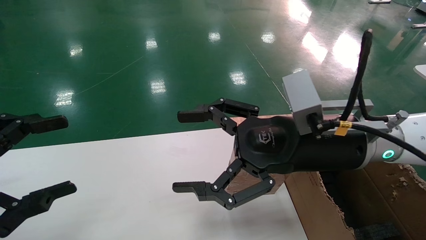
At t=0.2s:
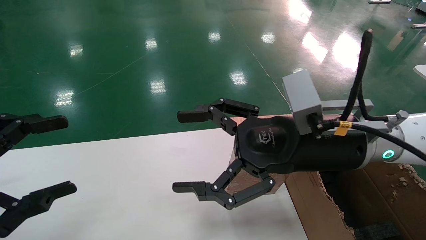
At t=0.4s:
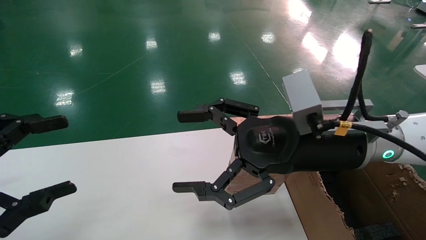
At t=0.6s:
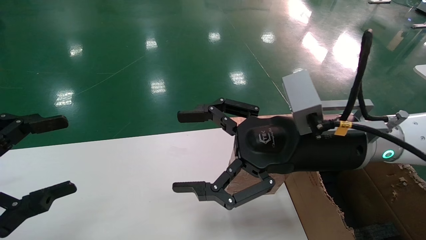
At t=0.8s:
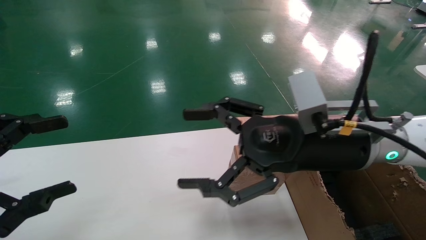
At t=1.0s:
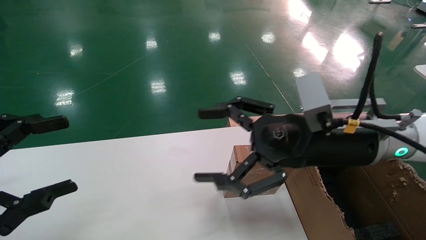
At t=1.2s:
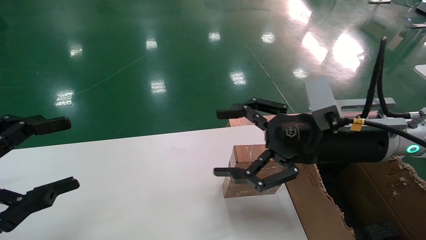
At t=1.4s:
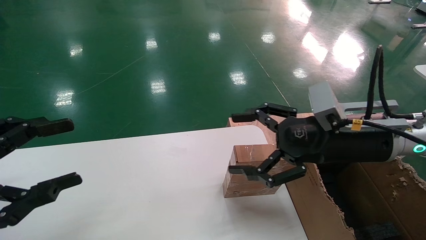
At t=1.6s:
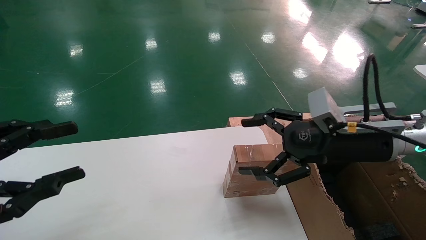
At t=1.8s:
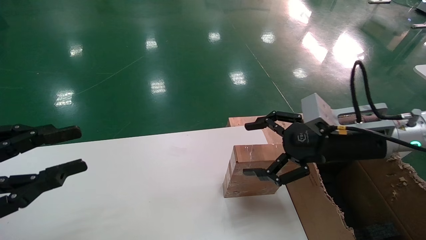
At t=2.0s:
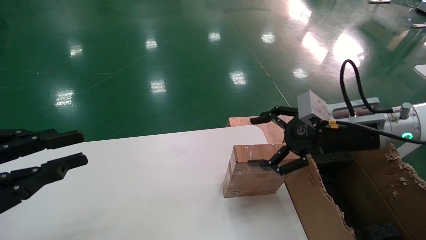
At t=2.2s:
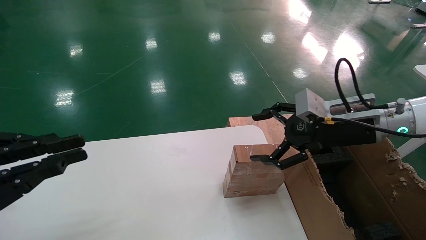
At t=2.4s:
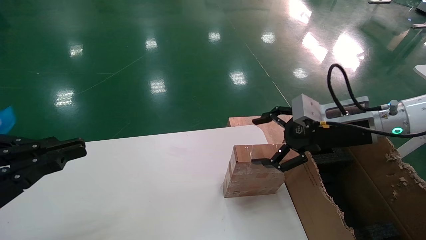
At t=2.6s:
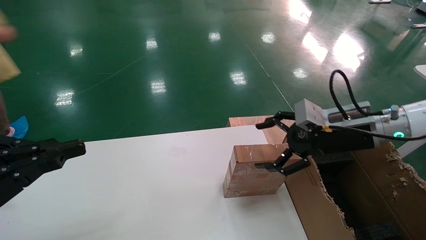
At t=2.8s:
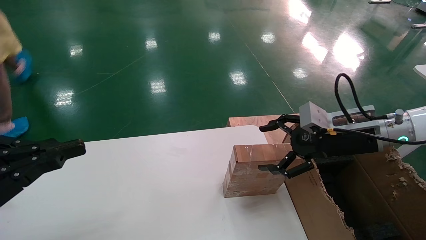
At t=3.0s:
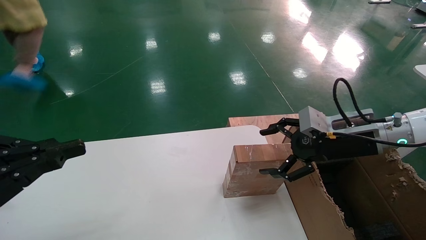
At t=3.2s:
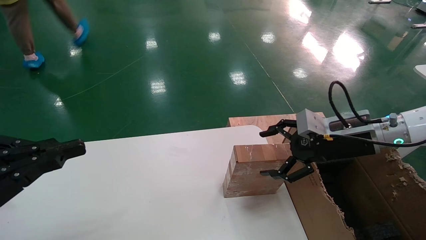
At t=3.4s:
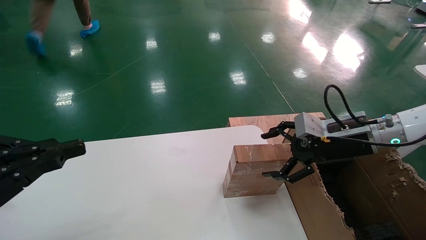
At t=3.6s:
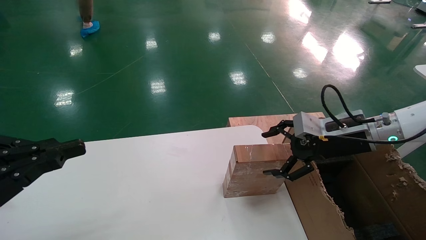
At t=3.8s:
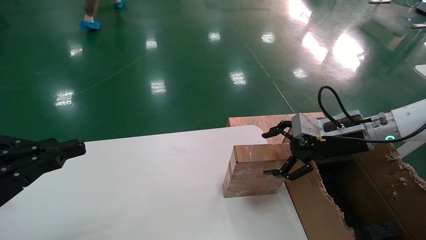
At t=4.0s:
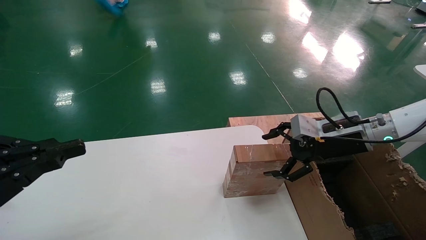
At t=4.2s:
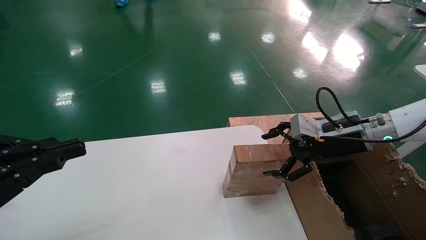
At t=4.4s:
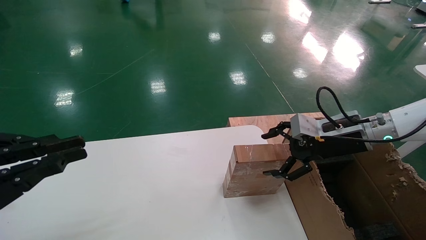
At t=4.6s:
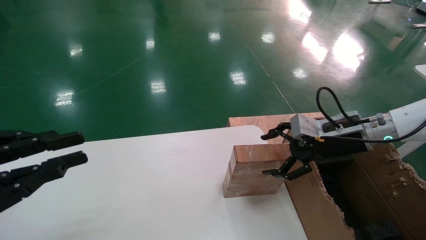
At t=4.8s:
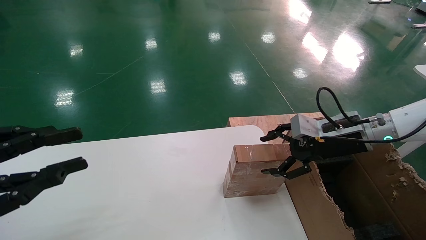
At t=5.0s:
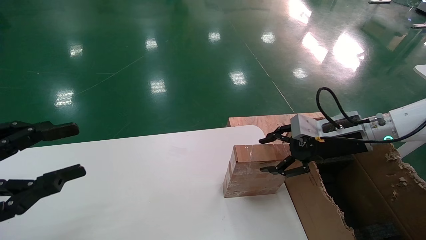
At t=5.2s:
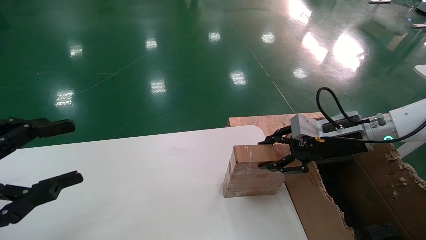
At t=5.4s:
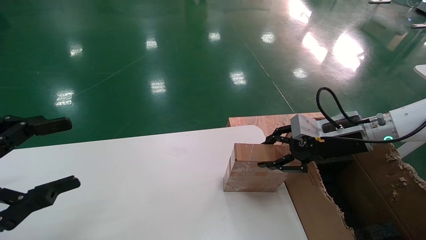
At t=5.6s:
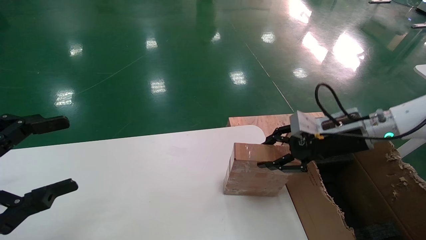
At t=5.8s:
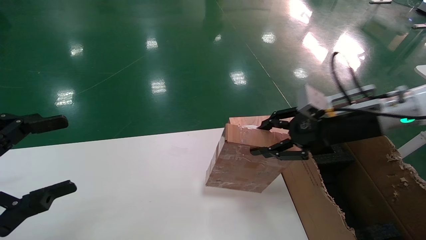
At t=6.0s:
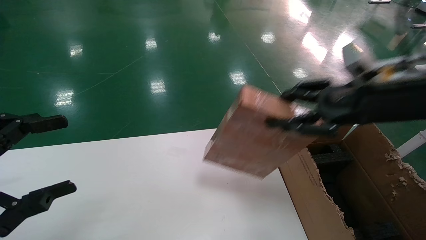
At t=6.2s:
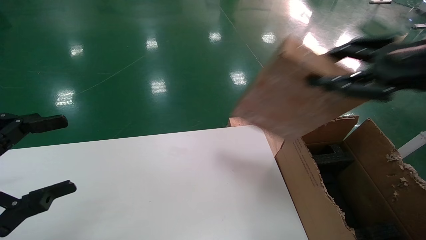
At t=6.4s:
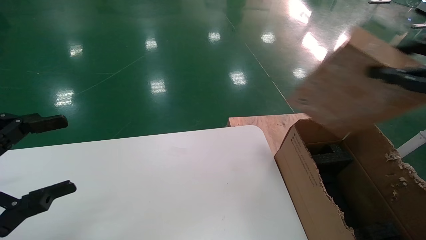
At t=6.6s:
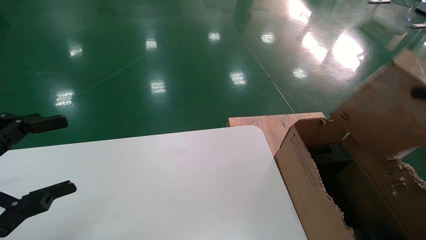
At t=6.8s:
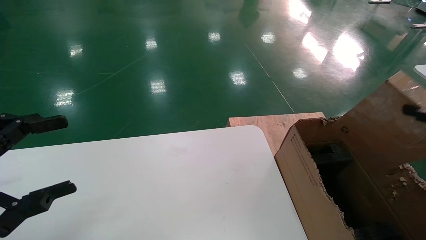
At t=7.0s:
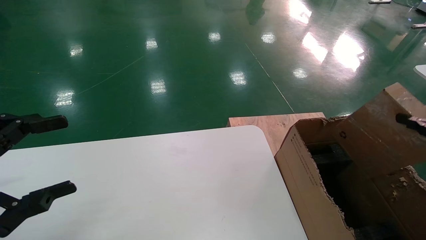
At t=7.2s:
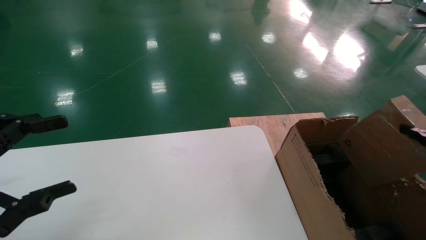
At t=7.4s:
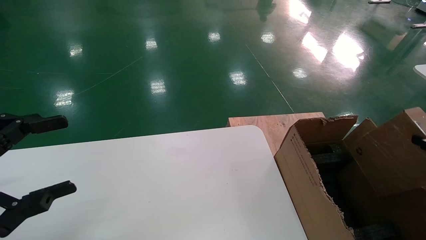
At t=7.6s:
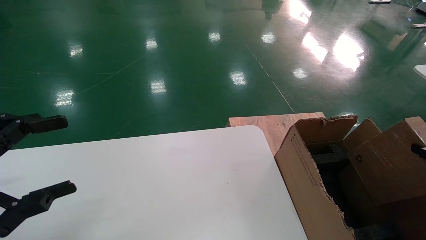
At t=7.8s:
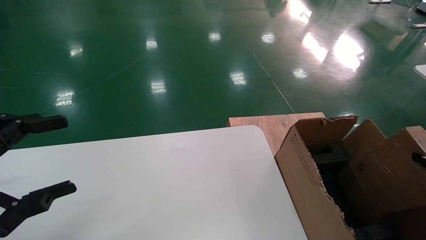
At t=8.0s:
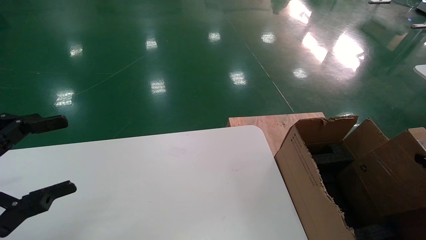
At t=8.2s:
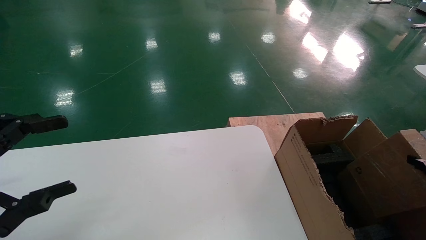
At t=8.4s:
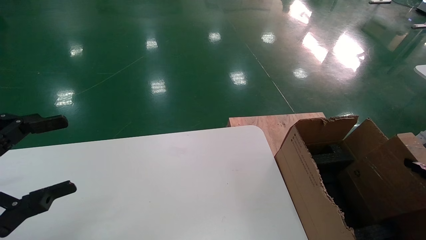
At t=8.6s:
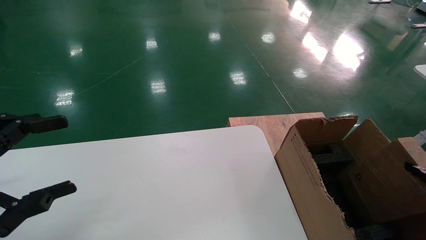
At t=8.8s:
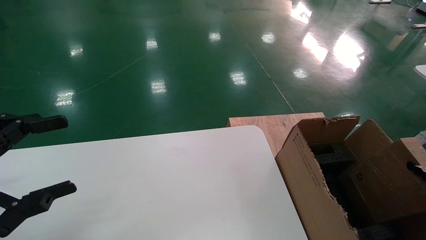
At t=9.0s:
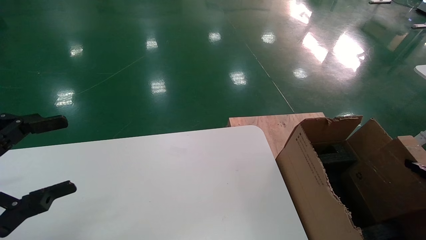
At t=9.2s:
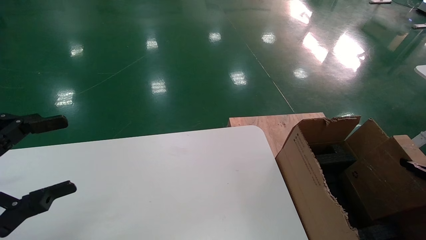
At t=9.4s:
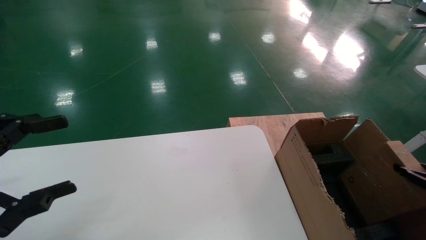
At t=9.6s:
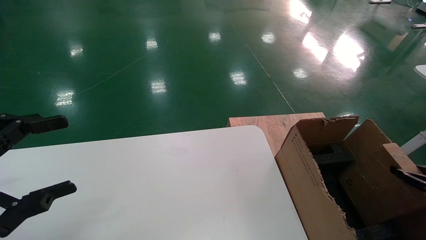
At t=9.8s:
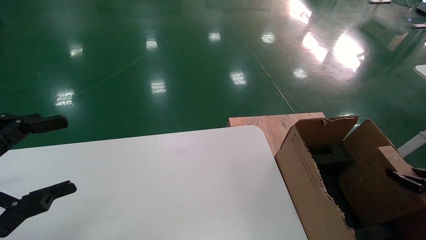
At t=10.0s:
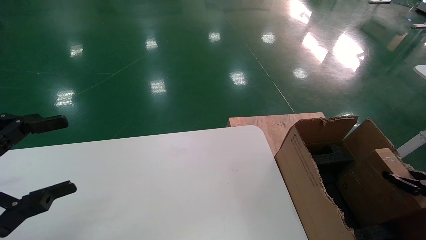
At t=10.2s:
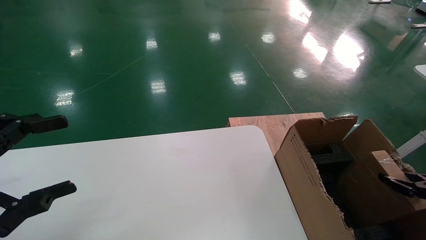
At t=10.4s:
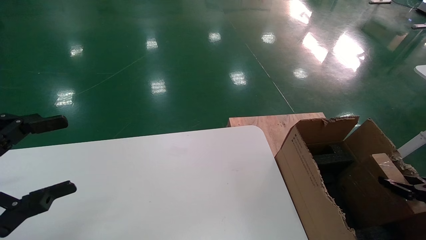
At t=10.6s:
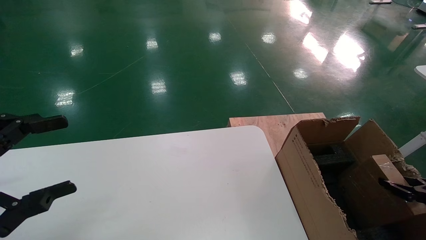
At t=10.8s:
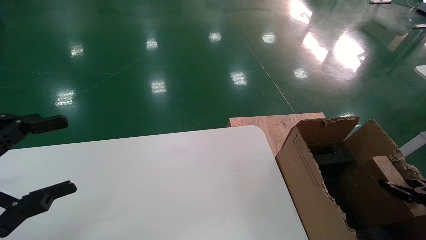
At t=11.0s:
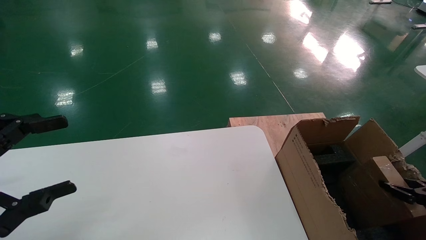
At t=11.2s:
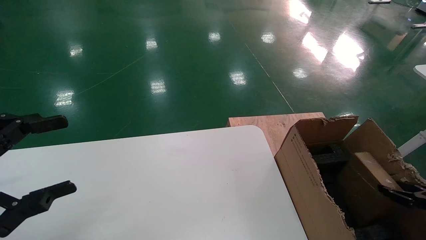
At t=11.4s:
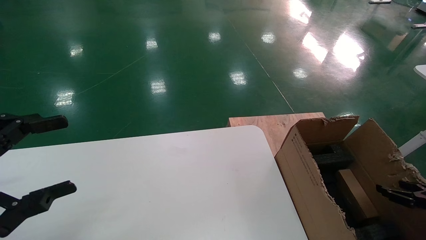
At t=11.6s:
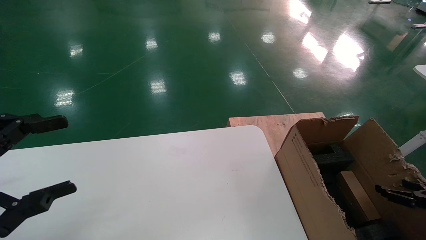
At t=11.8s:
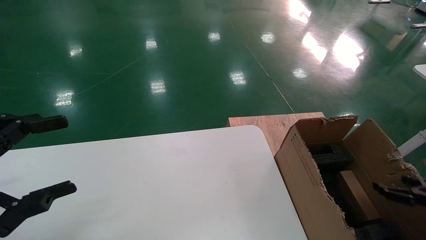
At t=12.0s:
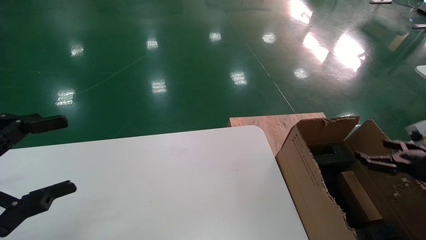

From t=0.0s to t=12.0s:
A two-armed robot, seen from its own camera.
Task of the whole recording: put the box on the table into the big box.
Step, from t=1.2s to t=5.4s: Pick up the mouse and the power cord paper box.
Step, from t=5.6s to t=11.4s: Place the mouse and the power cord paper box into the container.
From t=0.0s to t=1.6s: The right gripper heads to the right, covering approximately 10 cm.
From t=1.6s to t=3.0s: The right gripper shifts some 5 cm to the right; the left gripper closes.
From t=3.0s to t=4.4s: The grippers make only small movements.
From t=4.4s to t=6.0s: The right gripper moves upward and backward, approximately 15 cm, and closes up; the left gripper opens.
From t=6.0s to t=7.6s: The right gripper travels to the right, downward and backward by some 30 cm.
From t=7.6s to t=9.0s: The right gripper goes roughly 5 cm downward.
From t=9.0s to t=10.4s: The right gripper travels downward by about 5 cm.
From t=10.4s to t=12.0s: The right gripper heads upward, covering approximately 5 cm, and opens.

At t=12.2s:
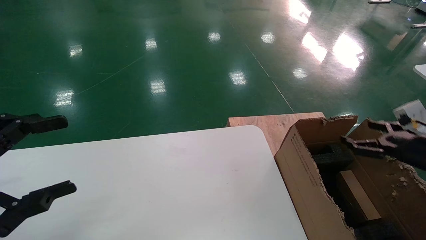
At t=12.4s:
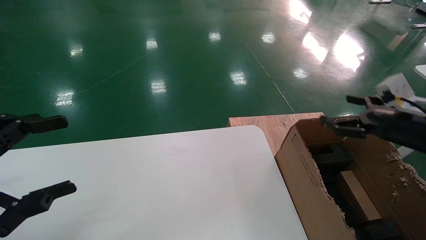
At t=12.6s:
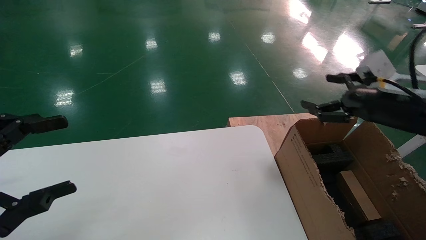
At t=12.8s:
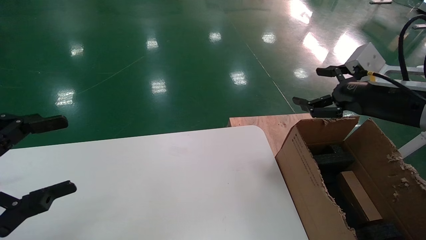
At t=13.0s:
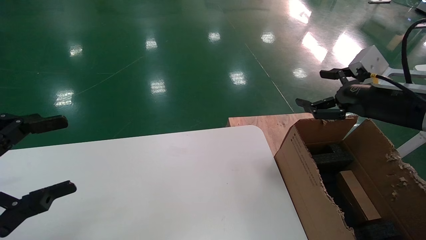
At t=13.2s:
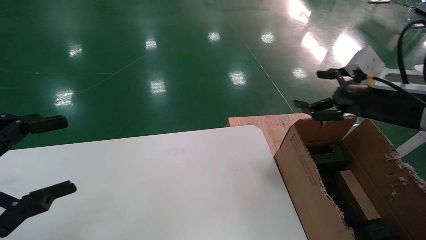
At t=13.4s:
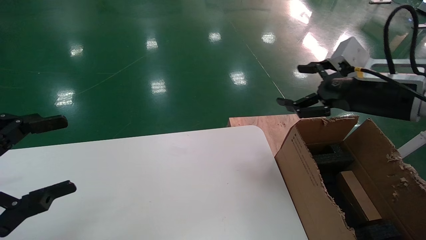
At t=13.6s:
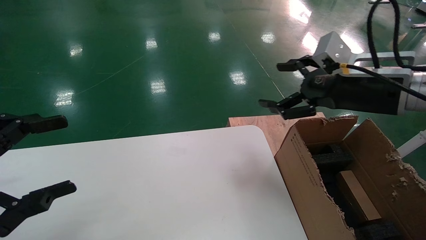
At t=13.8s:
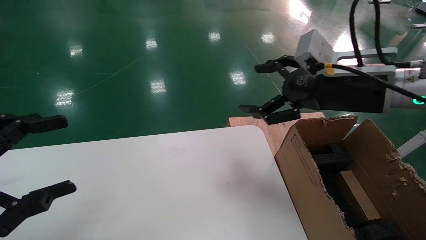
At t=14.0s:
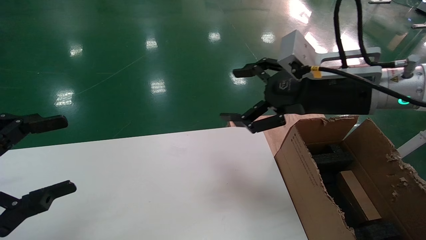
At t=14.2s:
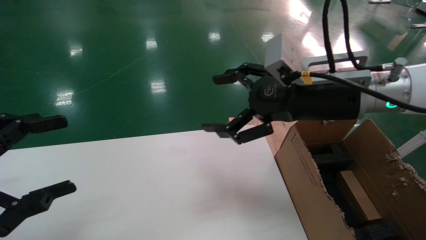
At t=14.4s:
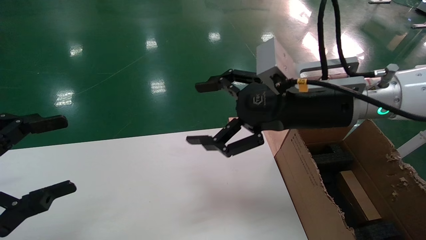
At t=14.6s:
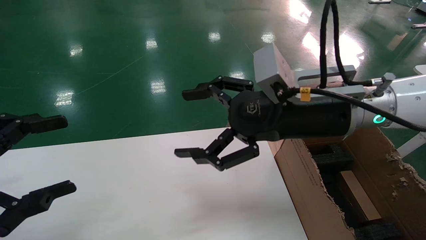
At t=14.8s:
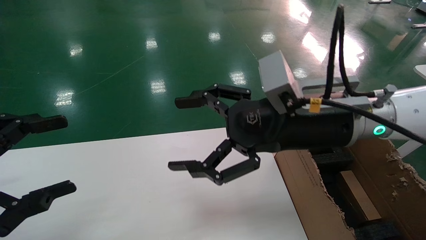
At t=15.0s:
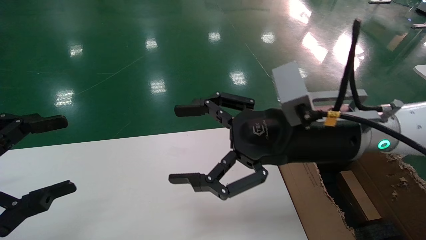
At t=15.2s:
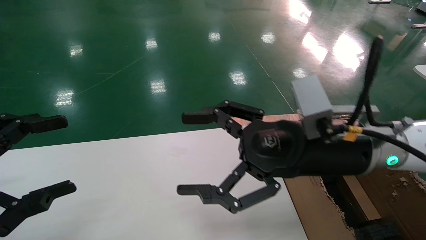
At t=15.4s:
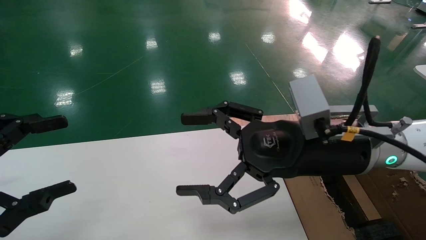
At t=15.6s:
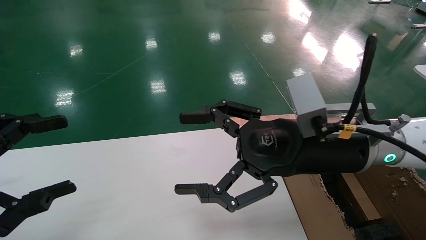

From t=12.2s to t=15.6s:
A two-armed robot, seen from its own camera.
Task of the whole recording: put the box on the table into the big box.
From t=12.2s to t=13.8s: The right gripper shifts some 25 cm to the left and upward.
From t=13.8s to t=15.6s: The right gripper is displaced to the left and downward by approximately 10 cm.
